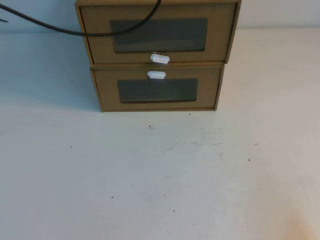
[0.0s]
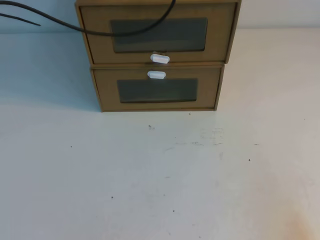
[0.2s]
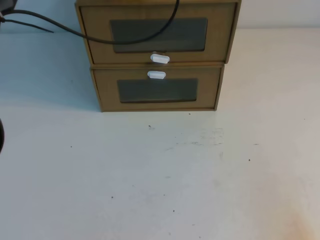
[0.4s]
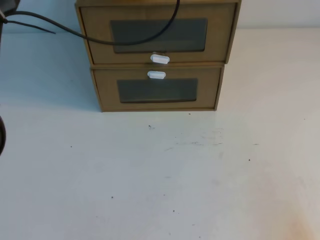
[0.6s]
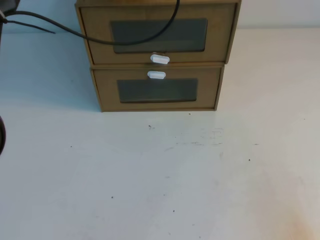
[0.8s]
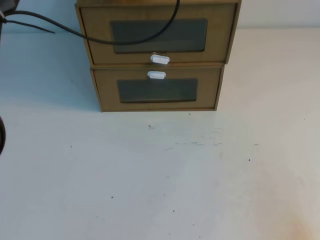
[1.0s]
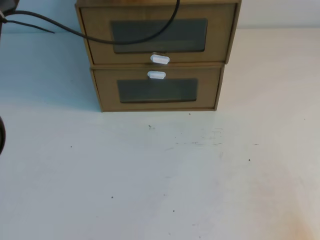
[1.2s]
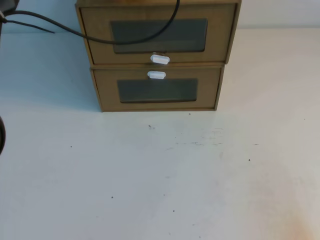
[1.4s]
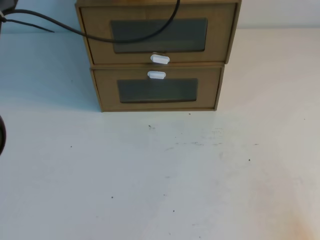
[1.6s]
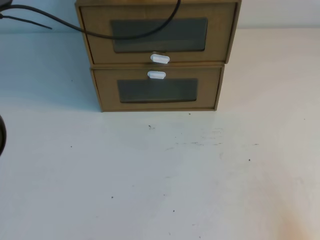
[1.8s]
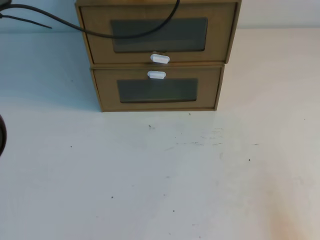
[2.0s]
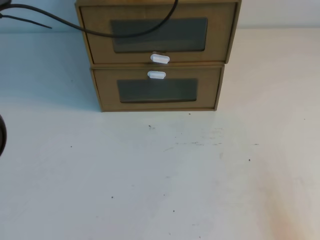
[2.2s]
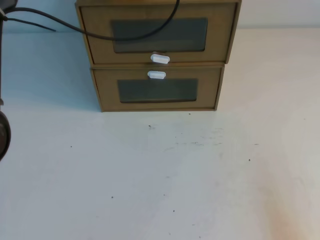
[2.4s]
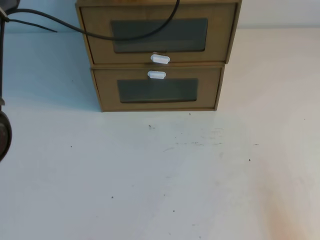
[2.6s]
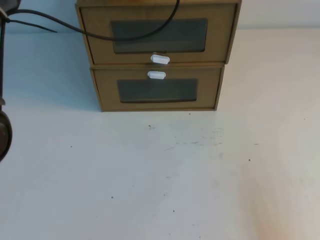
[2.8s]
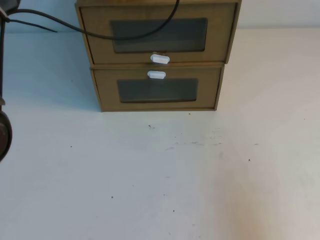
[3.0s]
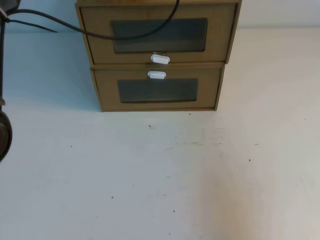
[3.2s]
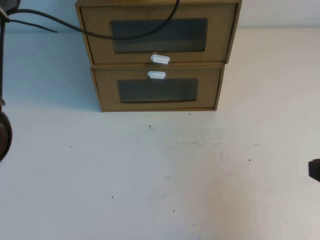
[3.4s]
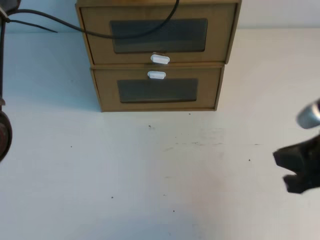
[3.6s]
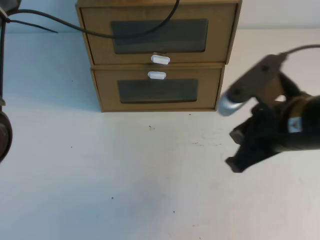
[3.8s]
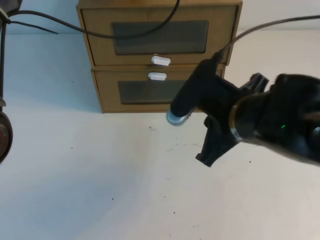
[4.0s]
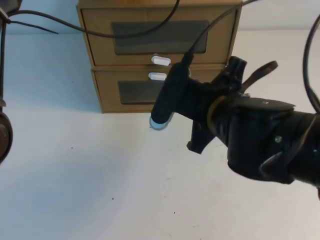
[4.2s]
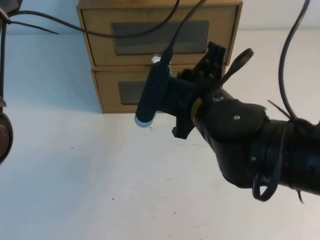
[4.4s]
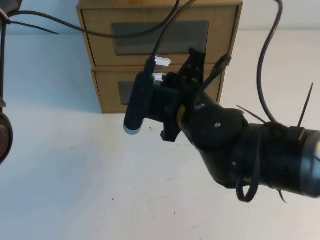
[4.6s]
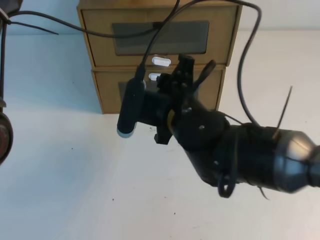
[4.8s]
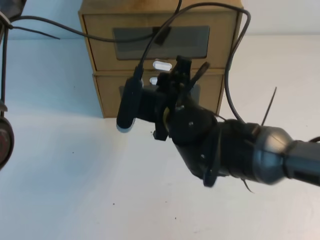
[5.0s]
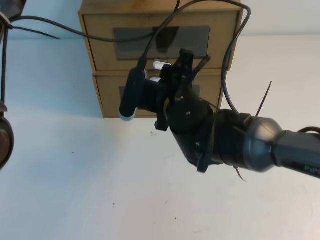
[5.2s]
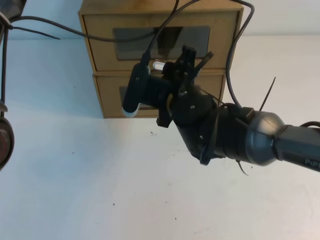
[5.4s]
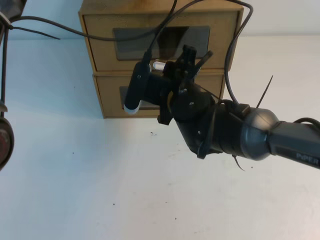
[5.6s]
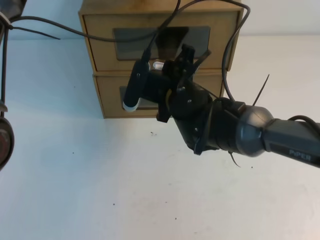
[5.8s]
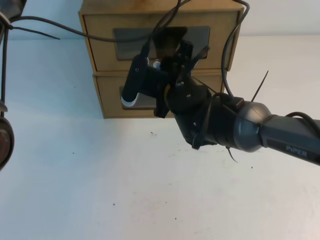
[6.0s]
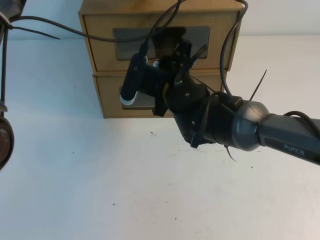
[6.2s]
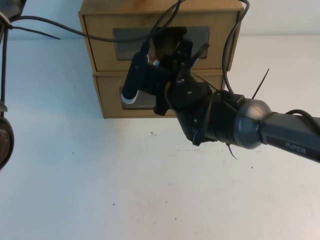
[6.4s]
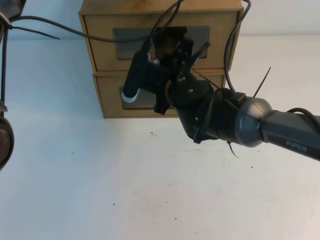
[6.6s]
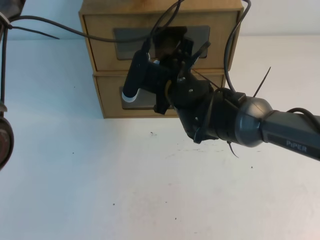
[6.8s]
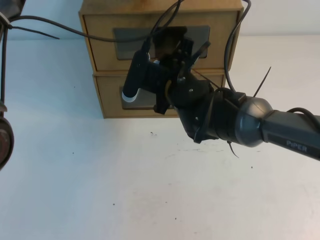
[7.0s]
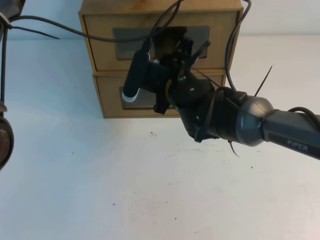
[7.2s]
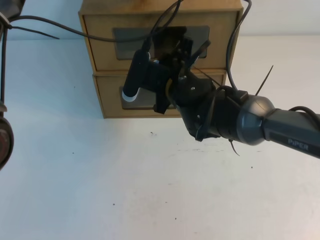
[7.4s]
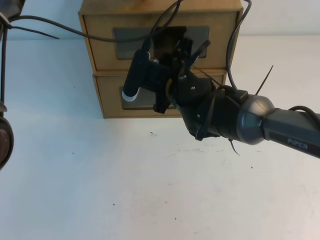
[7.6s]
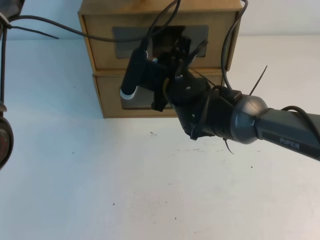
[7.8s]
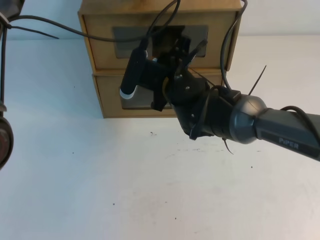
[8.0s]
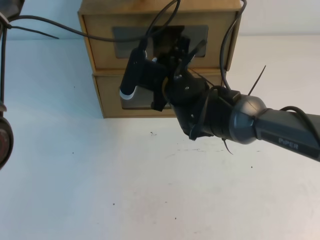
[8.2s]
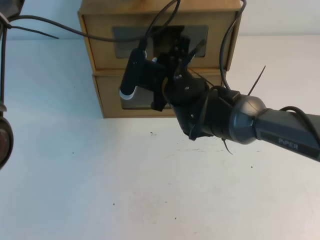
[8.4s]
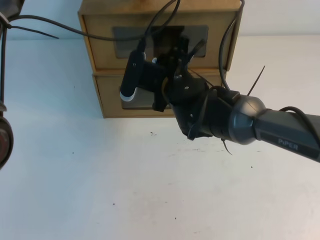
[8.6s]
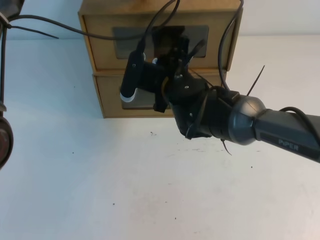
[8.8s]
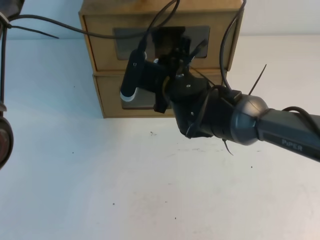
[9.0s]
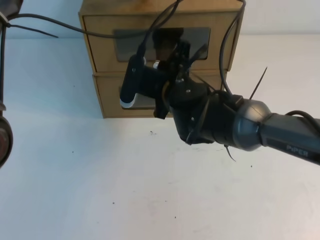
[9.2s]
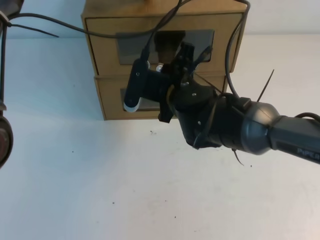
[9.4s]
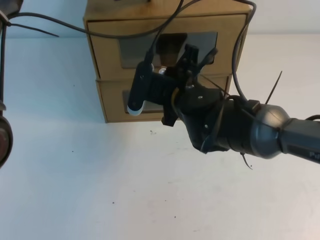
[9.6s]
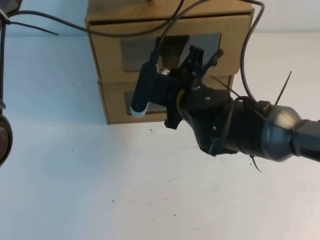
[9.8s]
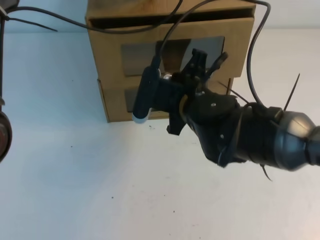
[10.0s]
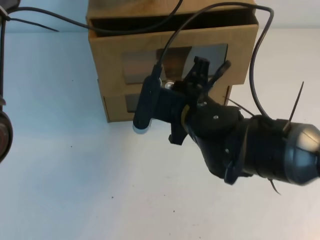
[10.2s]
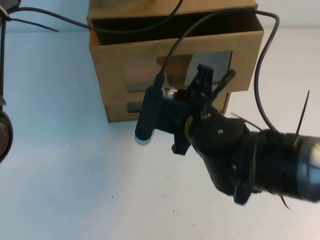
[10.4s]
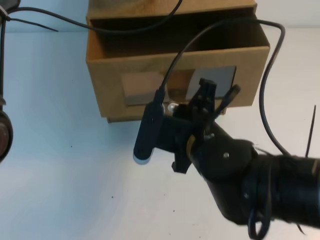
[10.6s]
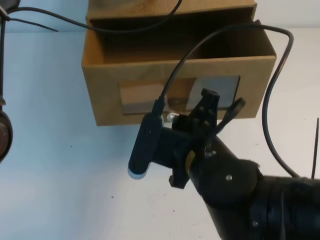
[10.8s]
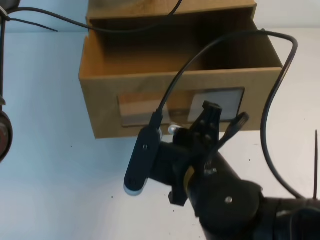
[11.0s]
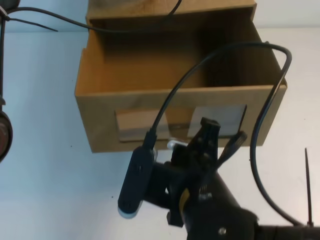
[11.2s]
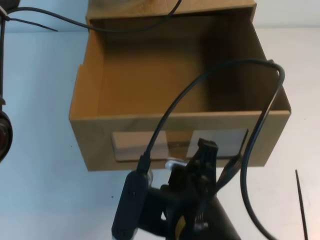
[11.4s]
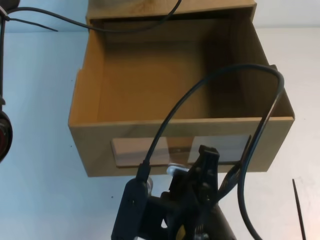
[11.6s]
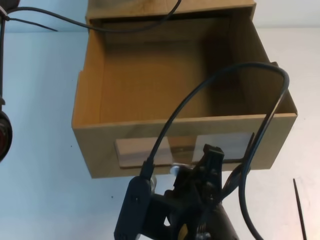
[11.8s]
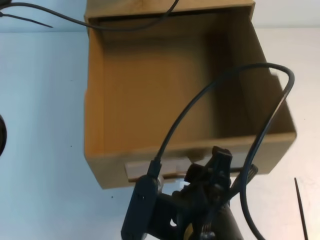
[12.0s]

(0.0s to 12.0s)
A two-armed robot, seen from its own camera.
Task of the whole recording: open the shoebox on the table.
0.0s - 1.6s: The left gripper moves about 10 cm.
1.6s - 3.0s: The right gripper travels upward by about 10 cm.
3.0s - 4.4s: The right gripper heads to the left and forward, covering about 30 cm.
4.4s - 6.0s: The right gripper travels forward by about 10 cm, and opens its fingers.
6.0s - 7.6s: Both grippers stay put.
7.6s - 9.0s: The right gripper closes up.
9.0s - 10.4s: The right gripper moves backward, about 10 cm.
10.4s - 12.0s: The right gripper goes about 15 cm backward, and opens up.

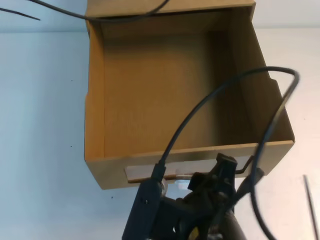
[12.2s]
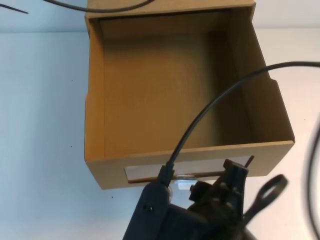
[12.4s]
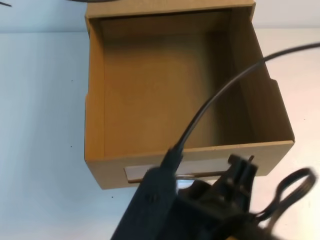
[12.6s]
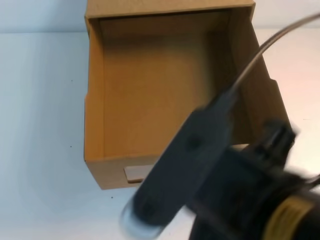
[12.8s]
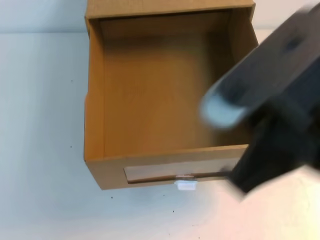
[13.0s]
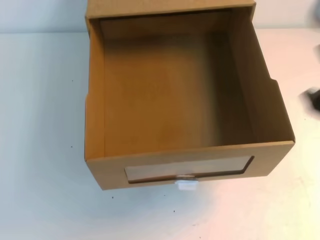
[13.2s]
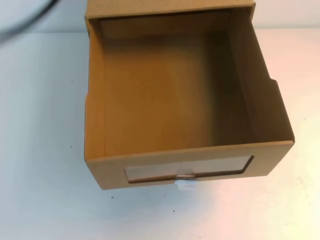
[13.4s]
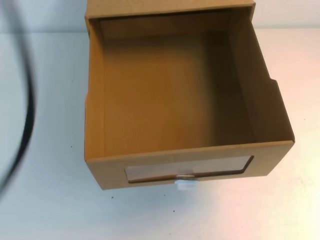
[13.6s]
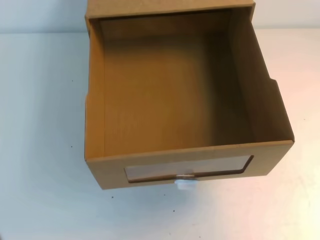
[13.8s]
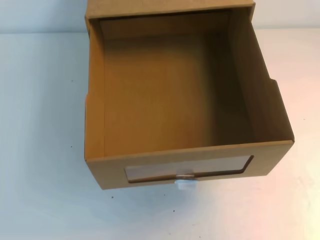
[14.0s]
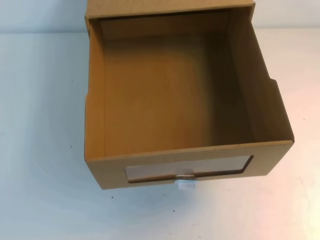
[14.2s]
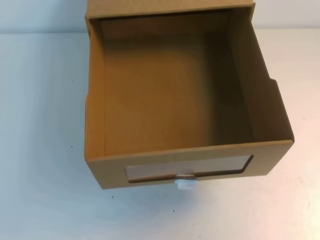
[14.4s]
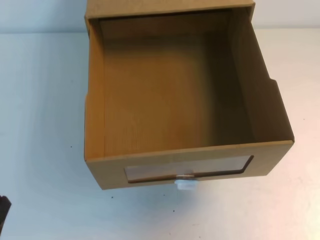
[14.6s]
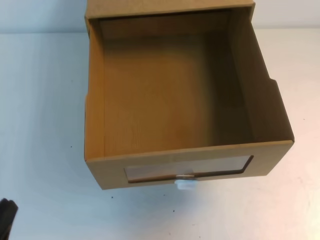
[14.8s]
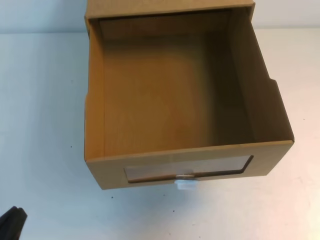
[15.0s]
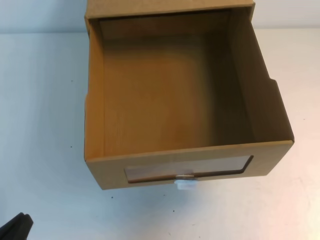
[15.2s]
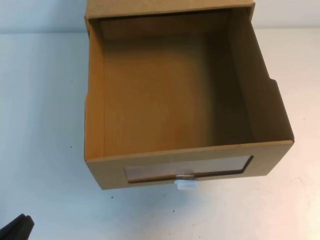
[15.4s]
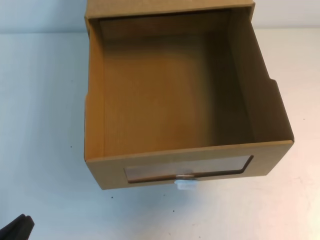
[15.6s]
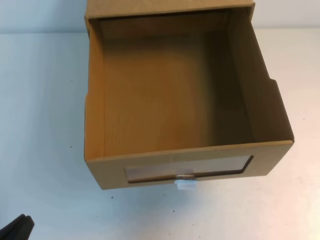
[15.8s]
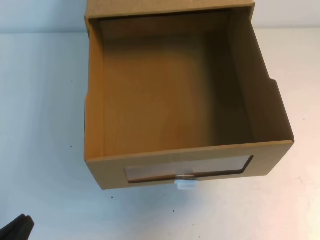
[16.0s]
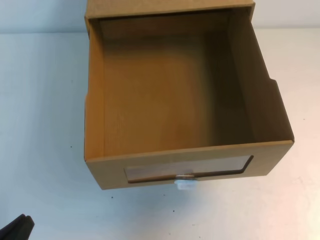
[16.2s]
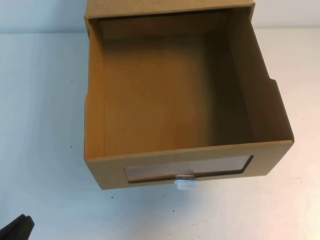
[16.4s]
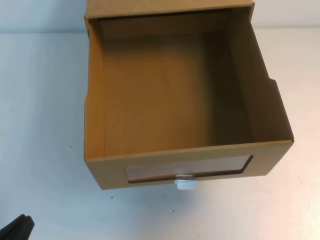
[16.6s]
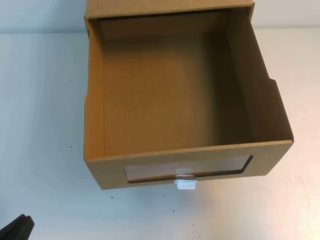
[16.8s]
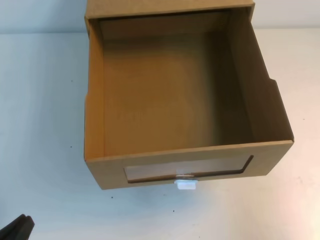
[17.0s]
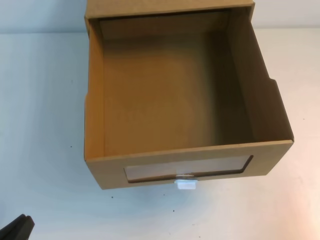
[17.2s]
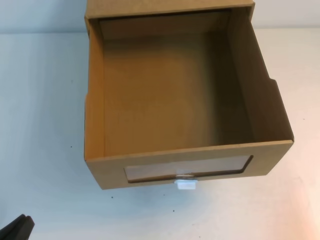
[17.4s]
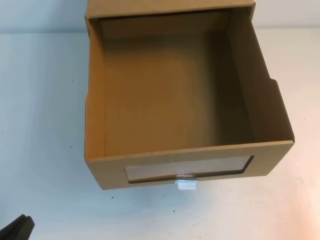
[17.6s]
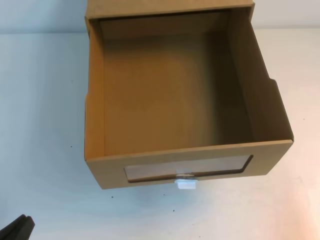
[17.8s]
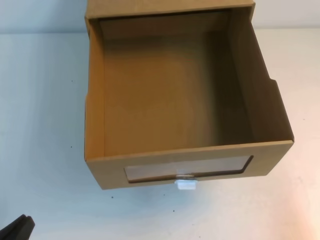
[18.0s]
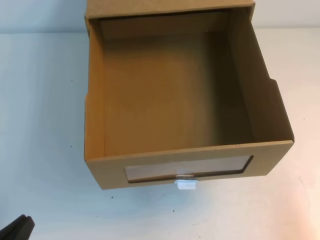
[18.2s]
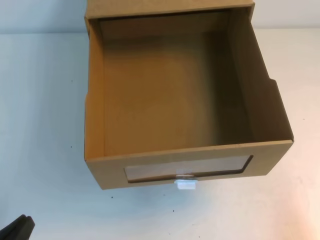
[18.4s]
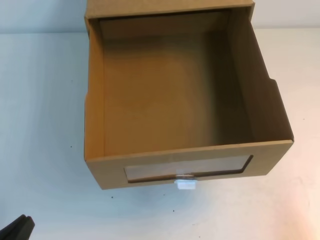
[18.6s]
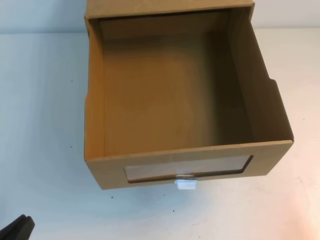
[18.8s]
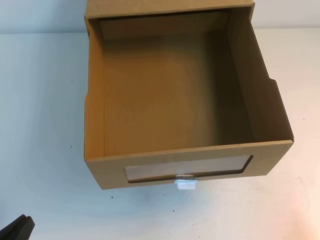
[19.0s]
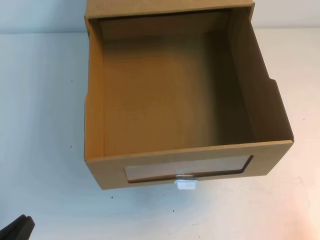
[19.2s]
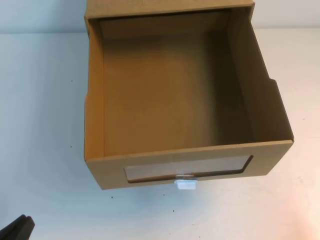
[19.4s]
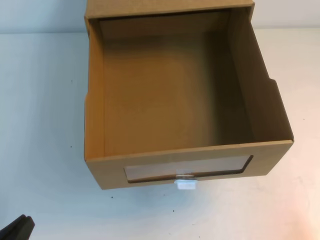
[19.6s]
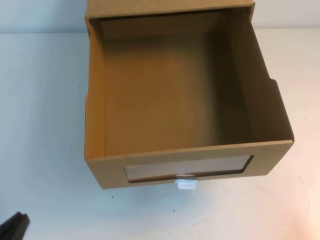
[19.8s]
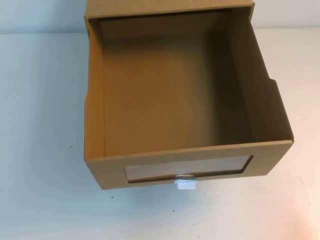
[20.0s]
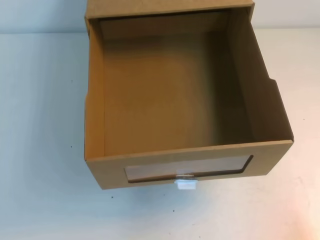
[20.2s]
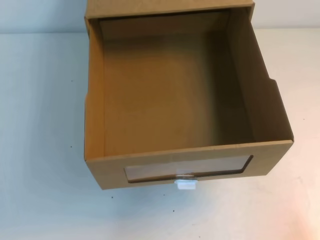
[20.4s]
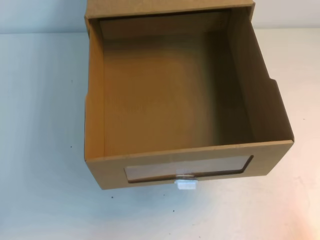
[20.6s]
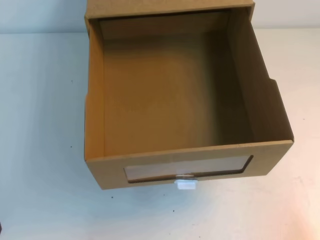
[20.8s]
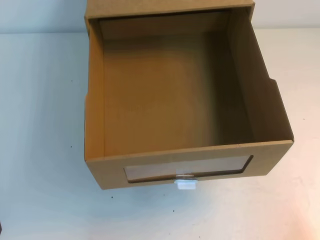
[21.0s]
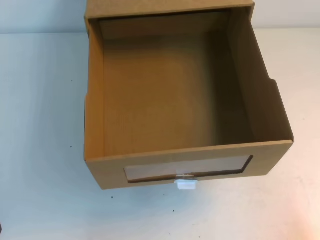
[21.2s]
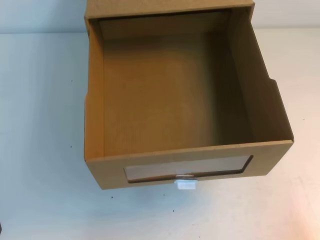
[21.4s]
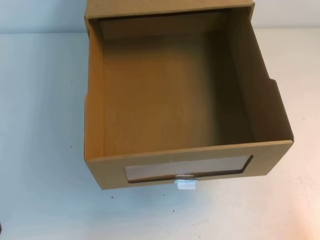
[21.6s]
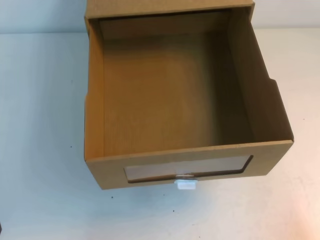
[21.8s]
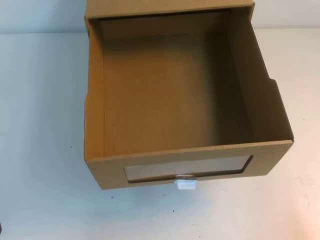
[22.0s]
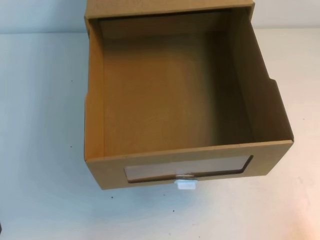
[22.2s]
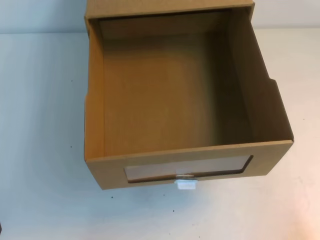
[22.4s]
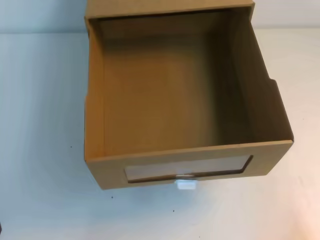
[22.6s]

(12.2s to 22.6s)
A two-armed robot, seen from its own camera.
Task of the whole recording: open the shoebox on the table.
Step, 12.2s - 22.6s: Open the shoe box.
12.2s - 13.6s: The left gripper heads backward, covering roughly 30 cm. Meanwhile the right gripper shifts about 30 cm to the right and upward, and closes its fingers.
13.6s - 15.2s: The left gripper is displaced downward by roughly 35 cm.
16.6s - 18.2s: The right gripper moves downward and backward, roughly 25 cm.
21.2s - 22.6s: Both grippers stay put.
